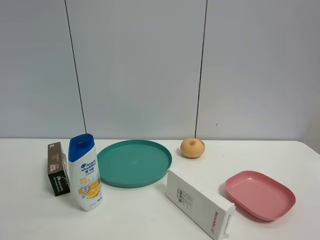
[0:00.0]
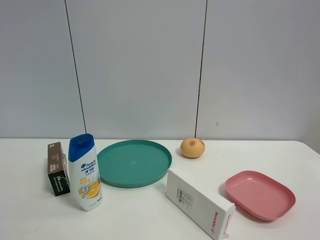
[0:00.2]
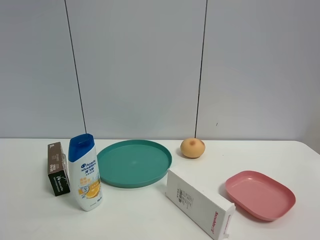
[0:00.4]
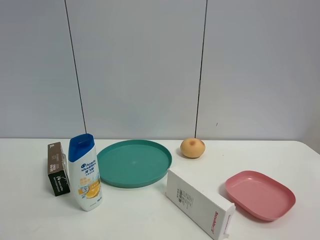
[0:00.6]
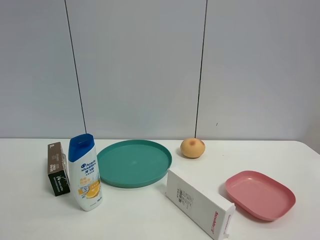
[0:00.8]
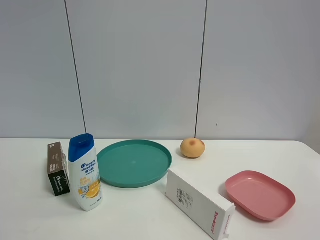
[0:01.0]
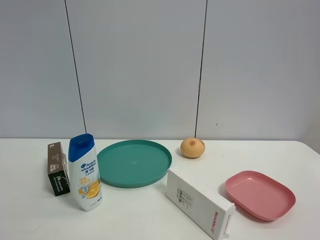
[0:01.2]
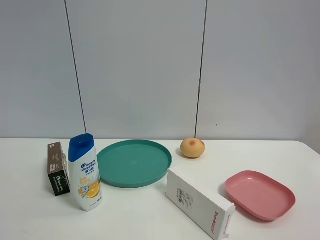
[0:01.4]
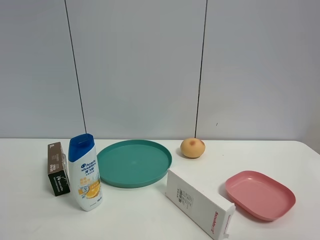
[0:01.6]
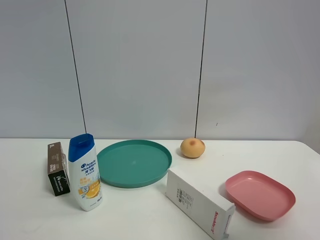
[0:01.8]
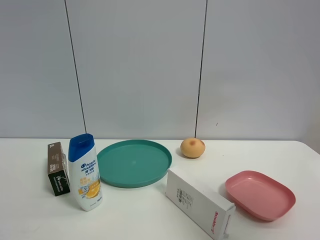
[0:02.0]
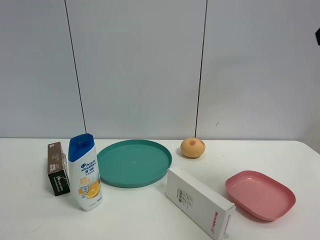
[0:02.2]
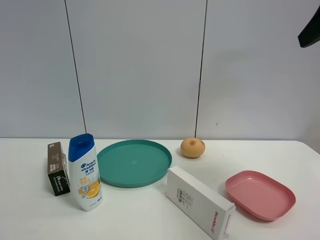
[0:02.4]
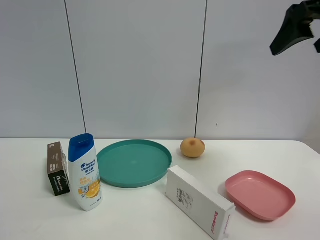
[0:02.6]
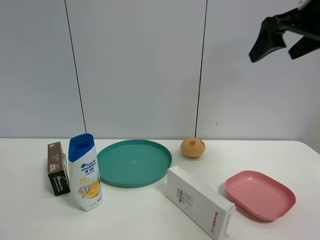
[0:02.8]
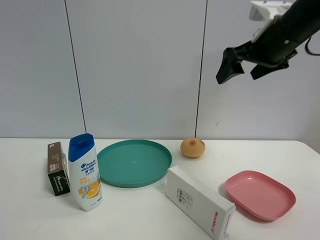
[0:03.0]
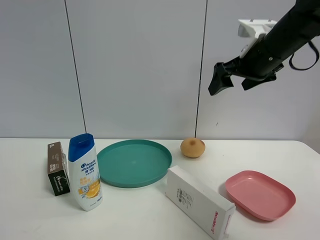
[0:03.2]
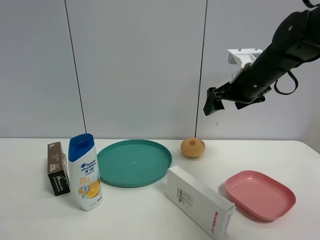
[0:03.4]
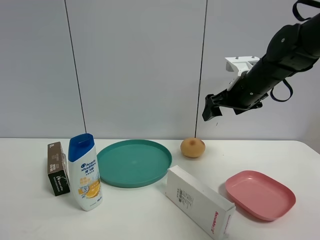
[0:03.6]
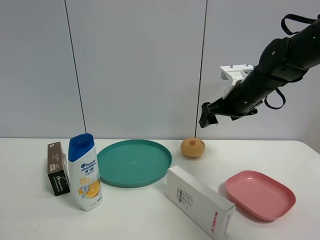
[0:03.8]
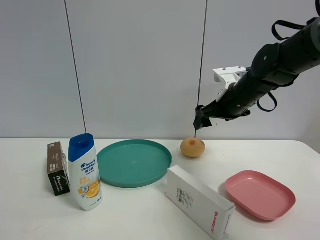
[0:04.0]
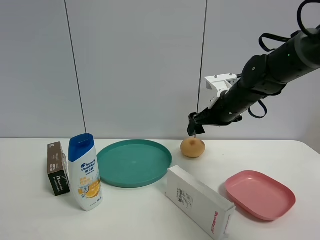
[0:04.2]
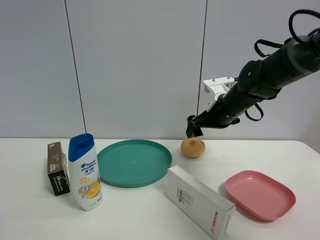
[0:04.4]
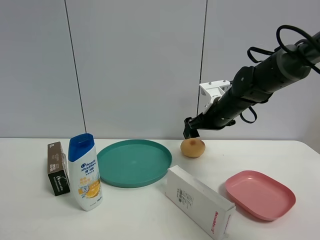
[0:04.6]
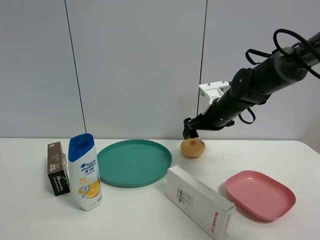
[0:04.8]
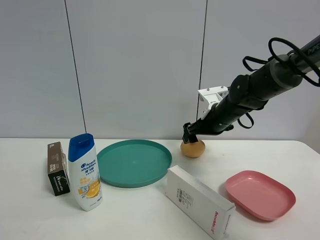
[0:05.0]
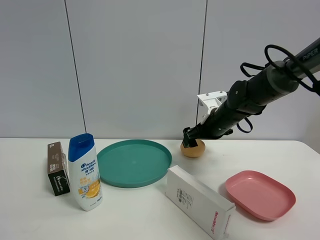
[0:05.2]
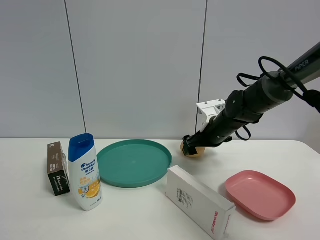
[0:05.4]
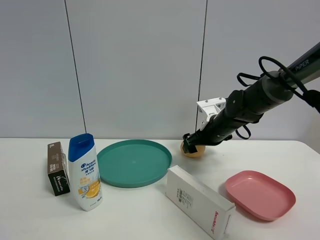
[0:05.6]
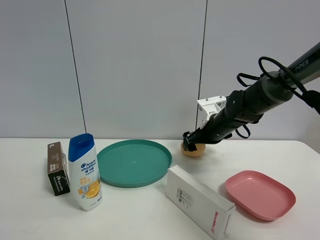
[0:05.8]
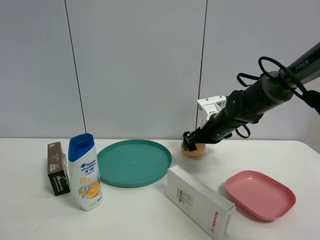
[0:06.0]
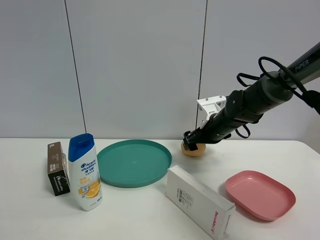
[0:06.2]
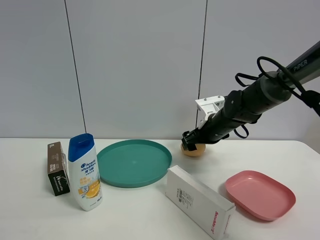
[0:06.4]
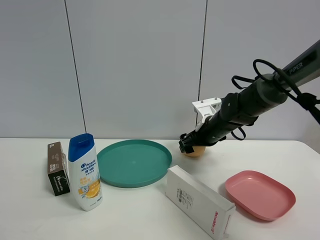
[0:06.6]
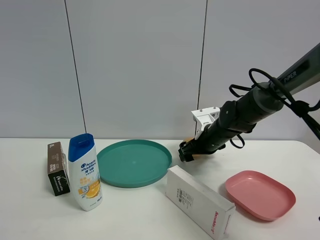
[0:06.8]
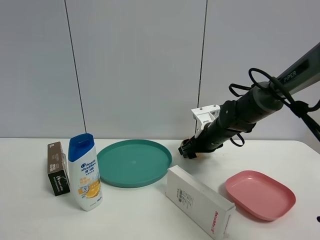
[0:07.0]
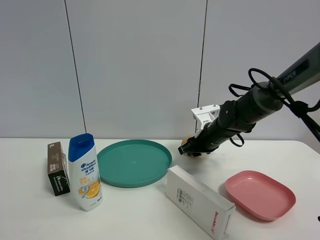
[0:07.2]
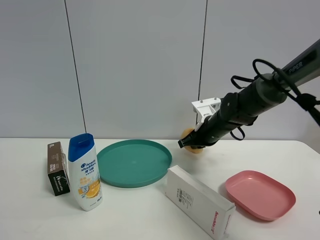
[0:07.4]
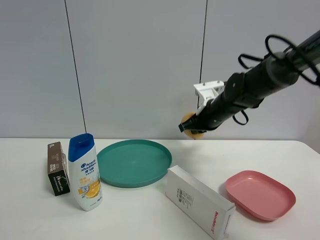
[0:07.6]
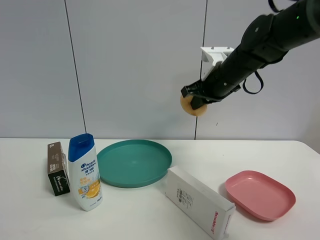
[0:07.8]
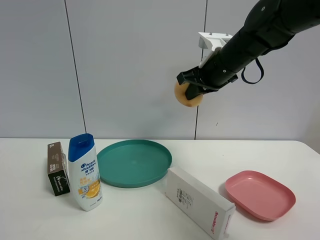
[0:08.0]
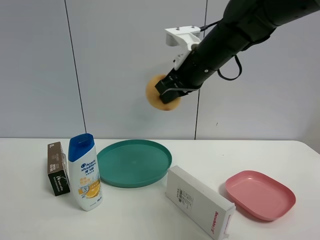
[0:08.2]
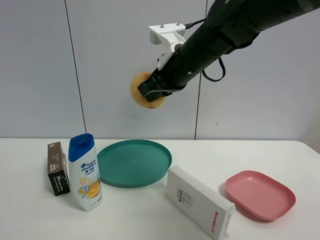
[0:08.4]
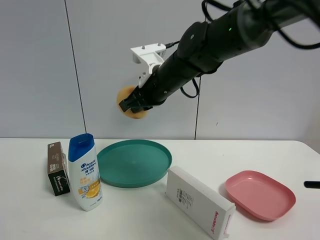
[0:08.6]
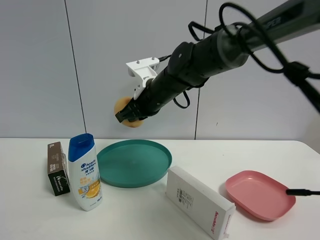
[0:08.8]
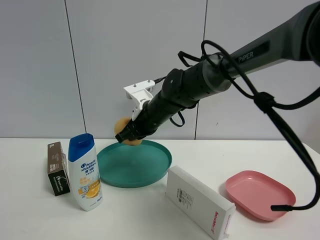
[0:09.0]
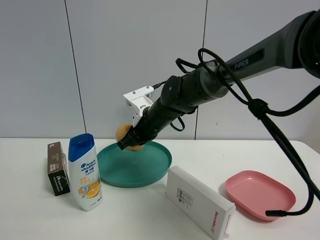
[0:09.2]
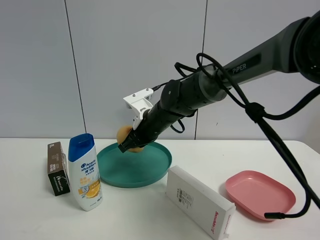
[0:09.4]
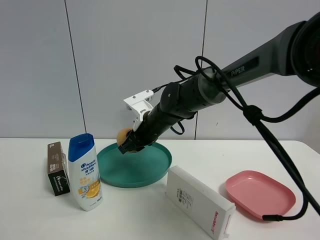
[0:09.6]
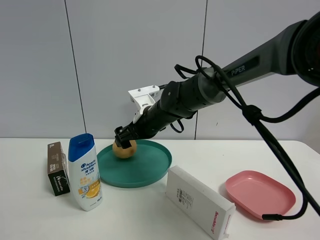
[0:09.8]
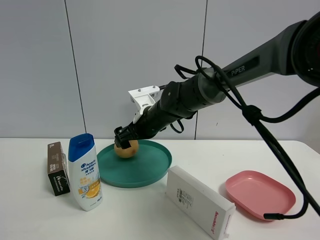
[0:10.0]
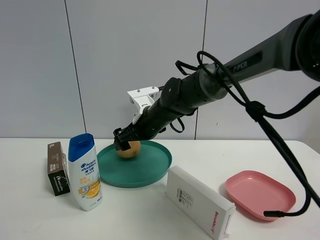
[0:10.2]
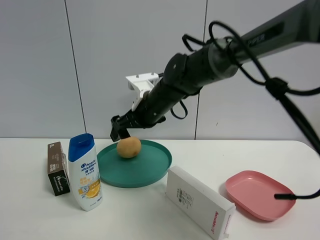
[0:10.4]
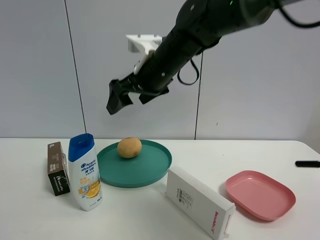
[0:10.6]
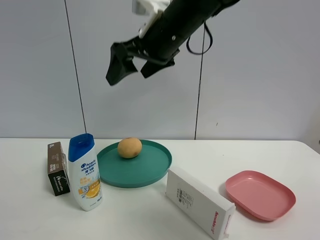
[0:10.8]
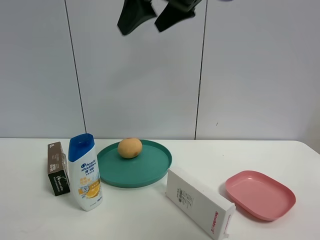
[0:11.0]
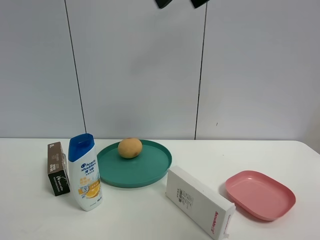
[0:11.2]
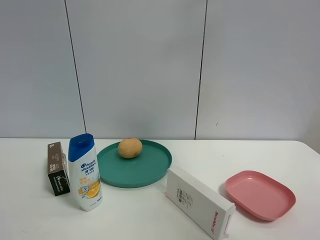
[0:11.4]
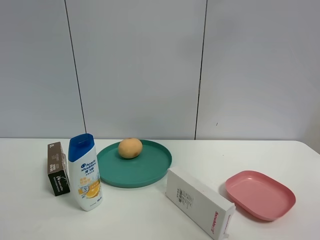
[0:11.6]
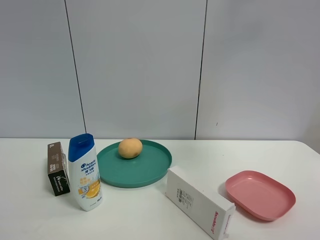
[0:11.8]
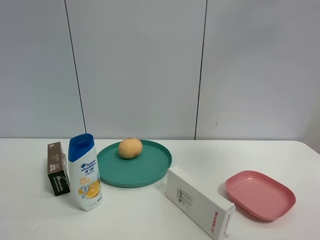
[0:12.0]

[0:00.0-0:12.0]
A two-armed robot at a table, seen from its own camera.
Task of the whole recording: the gripper move the object.
Step, 0:00.0 to 0:07.2: Grasp the egg yolk pastry with the right gripper.
Step, 0:07.4 to 0:10.0: Place the egg yolk pastry into the green plate with the right gripper.
0:01.6 to 0:03.0: The right gripper travels forward by about 35 cm.
0:03.0 to 0:04.4: The right gripper goes about 15 cm downward and forward.
0:04.4 to 0:06.0: The right gripper moves downward, roughly 5 cm.
0:06.0 to 0:07.6: The right gripper travels upward by roughly 5 cm, and closes up.
0:07.6 to 0:09.0: The right gripper moves to the left, roughly 15 cm.
0:09.0 to 0:10.4: The right gripper changes place by some 5 cm, and opens.
0:10.4 to 0:12.0: The right gripper is displaced to the right, upward and backward by about 50 cm.

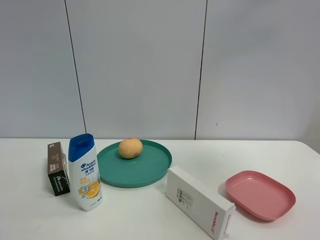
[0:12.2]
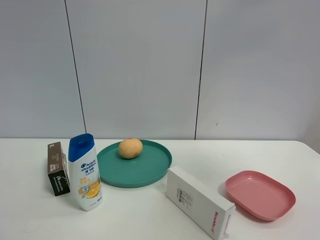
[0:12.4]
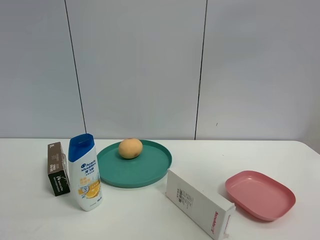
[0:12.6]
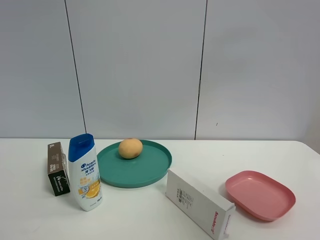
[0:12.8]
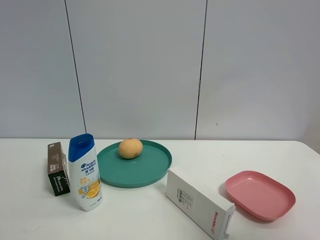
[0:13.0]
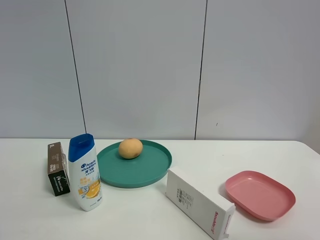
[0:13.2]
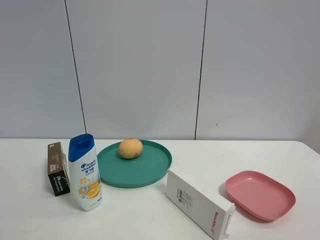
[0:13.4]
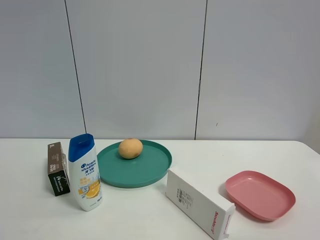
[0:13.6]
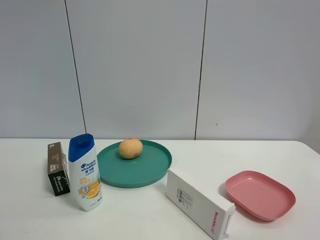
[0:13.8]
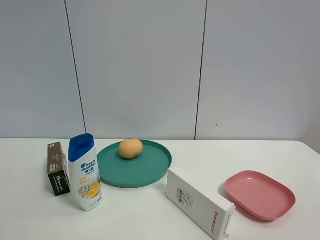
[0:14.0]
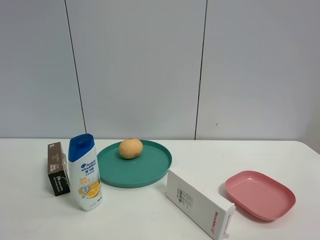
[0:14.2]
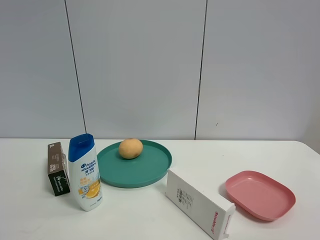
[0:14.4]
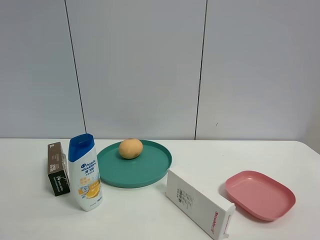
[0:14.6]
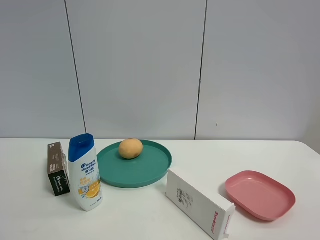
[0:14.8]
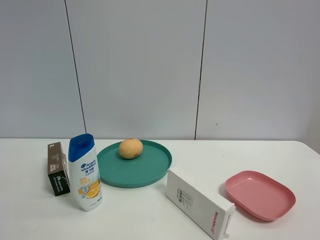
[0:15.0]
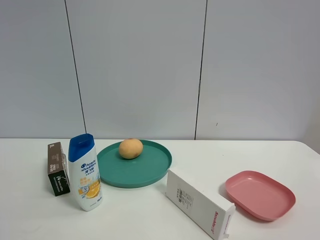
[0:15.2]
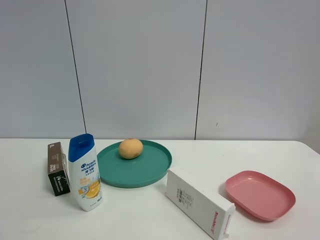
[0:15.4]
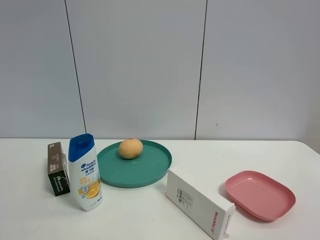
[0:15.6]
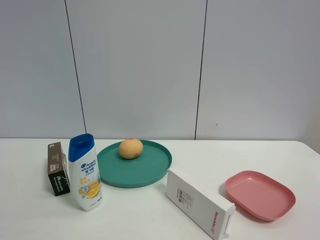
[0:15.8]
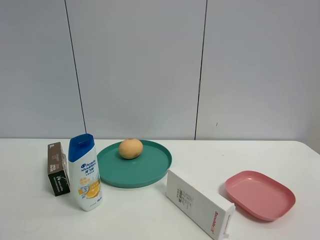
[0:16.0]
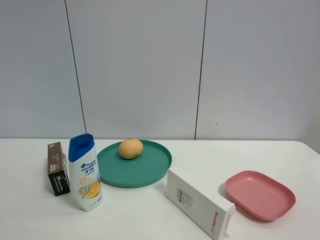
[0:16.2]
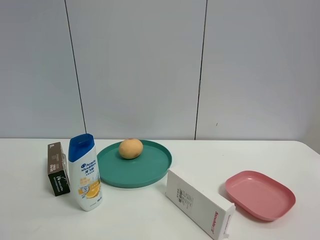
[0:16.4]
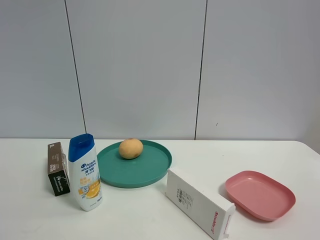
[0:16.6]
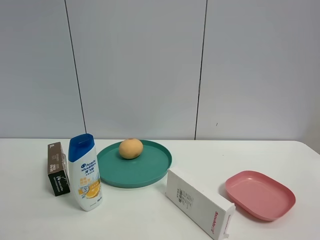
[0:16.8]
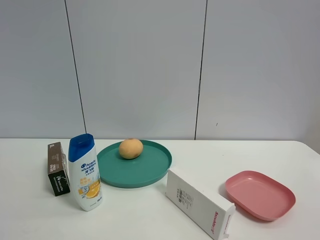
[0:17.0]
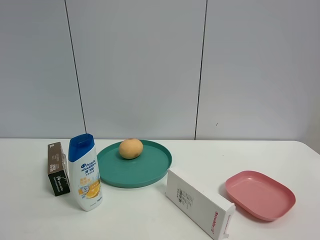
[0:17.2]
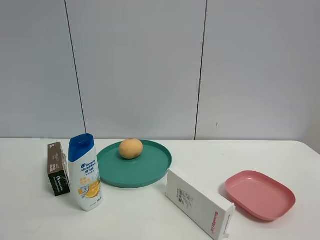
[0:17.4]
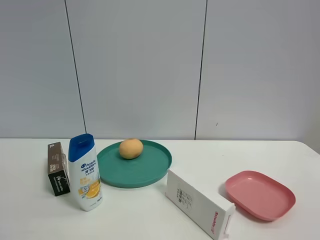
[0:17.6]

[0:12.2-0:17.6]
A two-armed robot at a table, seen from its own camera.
Task of the whole recording: the gripper move the object.
0:12.2 to 0:13.6: The right gripper is displaced downward and backward by some 30 cm.
0:16.2 to 0:17.6: Both grippers stay put.

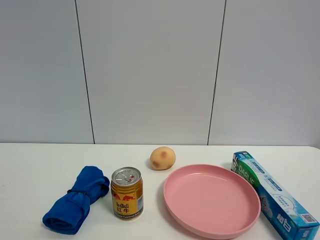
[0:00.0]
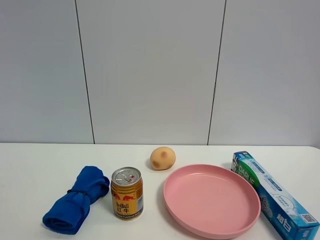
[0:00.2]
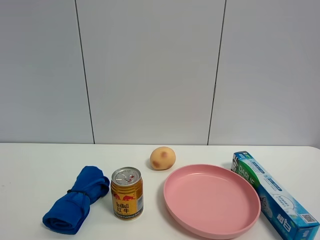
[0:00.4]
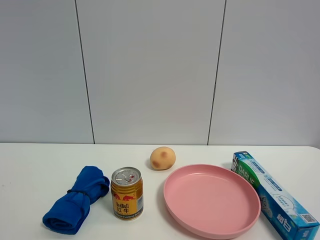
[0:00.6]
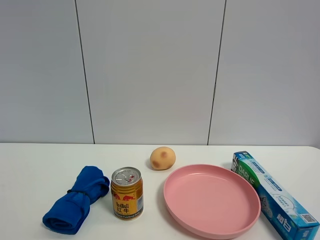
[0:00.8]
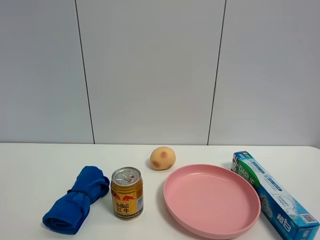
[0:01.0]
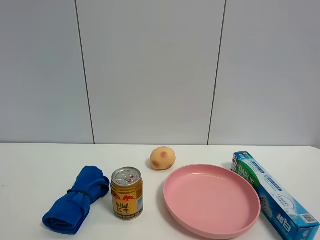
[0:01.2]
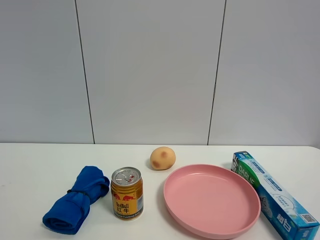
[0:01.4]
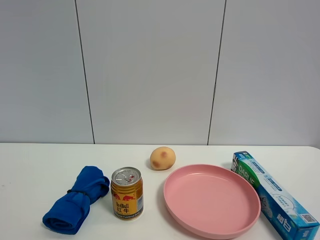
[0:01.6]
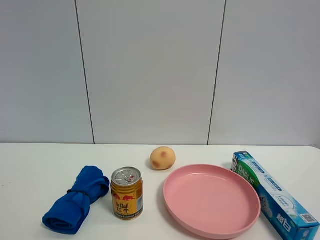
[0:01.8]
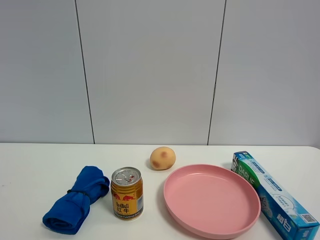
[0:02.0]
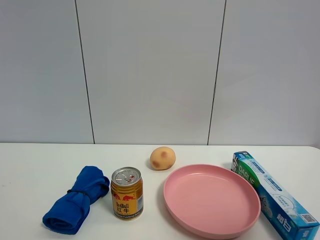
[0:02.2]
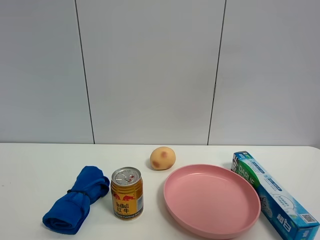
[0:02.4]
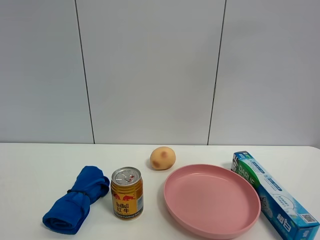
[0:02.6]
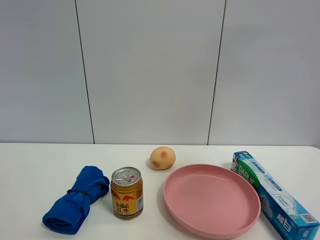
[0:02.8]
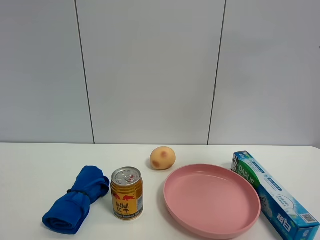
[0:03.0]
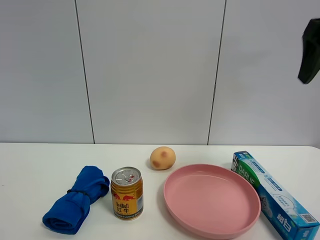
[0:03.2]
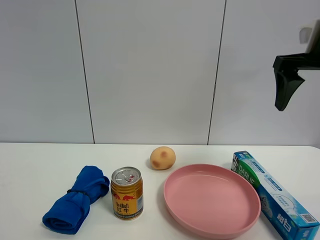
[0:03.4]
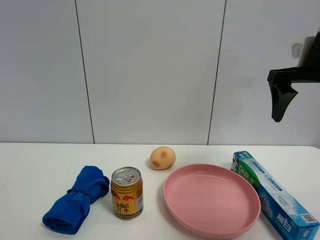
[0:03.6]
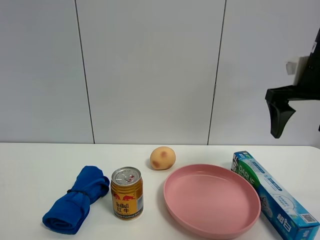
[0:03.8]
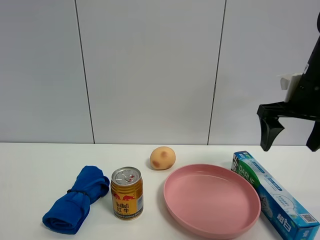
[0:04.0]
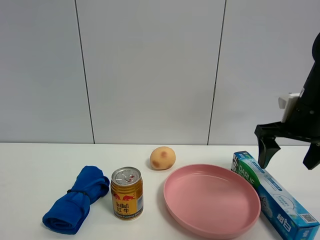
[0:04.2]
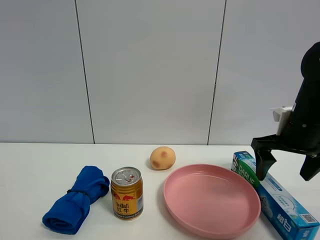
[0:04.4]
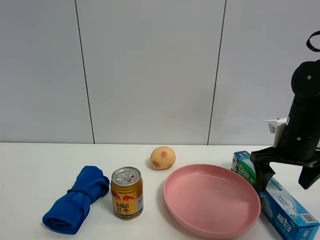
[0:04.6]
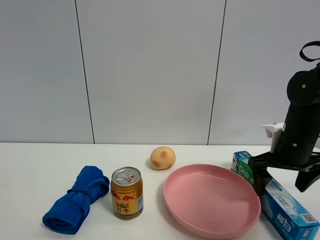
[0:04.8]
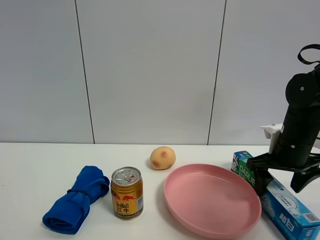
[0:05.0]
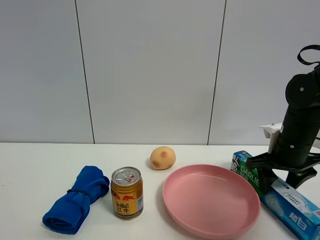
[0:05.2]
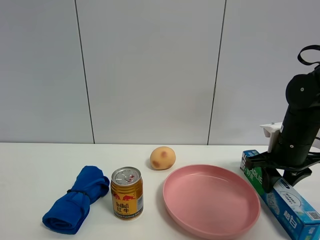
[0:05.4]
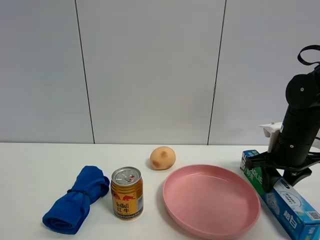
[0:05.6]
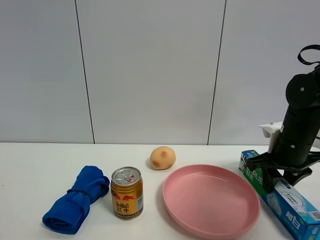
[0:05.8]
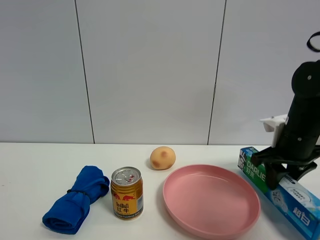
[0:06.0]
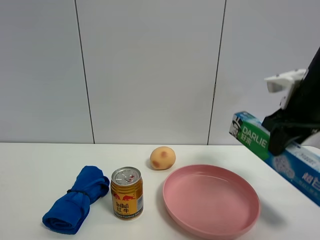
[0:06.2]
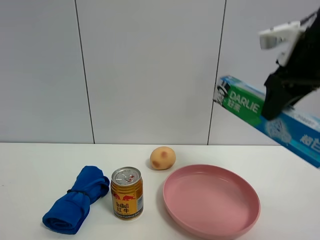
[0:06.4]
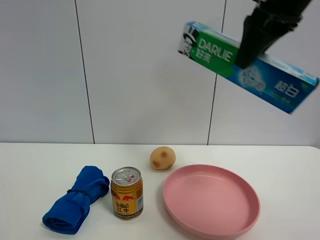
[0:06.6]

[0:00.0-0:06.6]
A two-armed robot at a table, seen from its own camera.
Task of the whole recording: the gripper move the object.
Step, 0:00.0 to 0:05.6: Grasp the toothpaste with the right gripper.
0:00.0 to 0:01.6: Both grippers stay put.
0:01.6 to 0:03.2: The right gripper heads forward, covering roughly 30 cm.
0:03.2 to 0:05.0: The right gripper goes about 25 cm downward, and closes.
0:05.0 to 0:06.6: The right gripper goes about 25 cm upward, and closes up.
